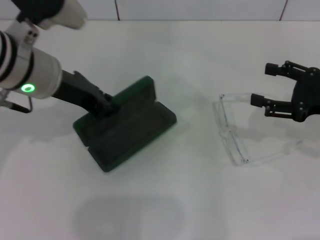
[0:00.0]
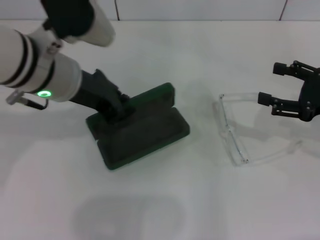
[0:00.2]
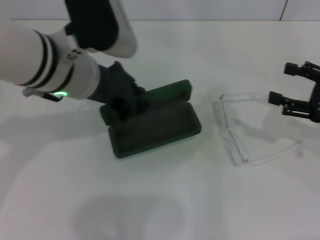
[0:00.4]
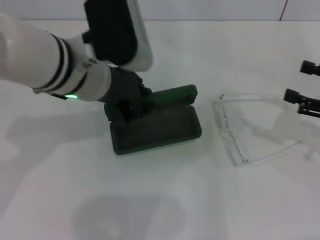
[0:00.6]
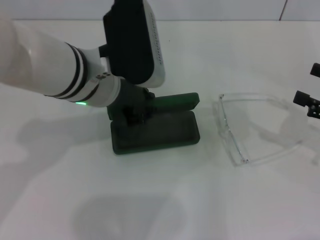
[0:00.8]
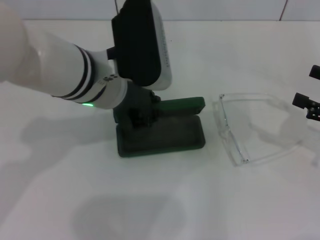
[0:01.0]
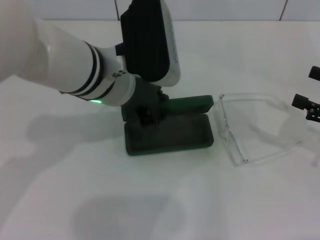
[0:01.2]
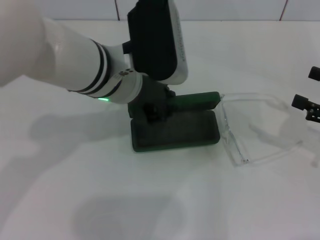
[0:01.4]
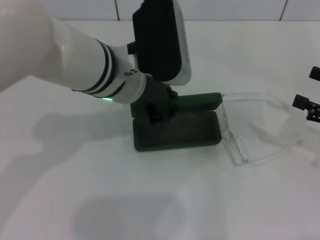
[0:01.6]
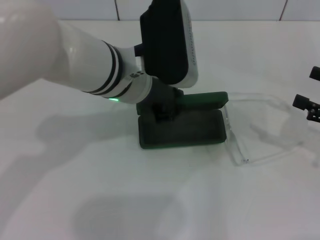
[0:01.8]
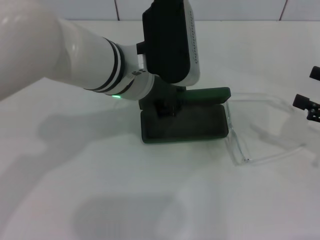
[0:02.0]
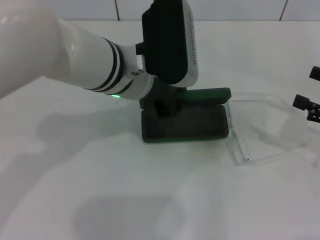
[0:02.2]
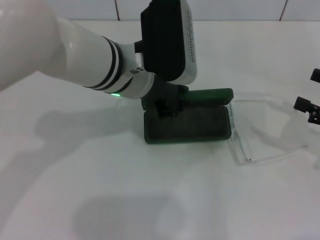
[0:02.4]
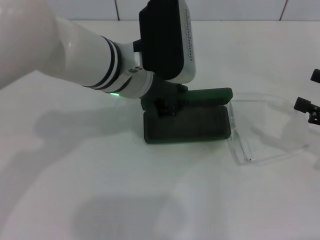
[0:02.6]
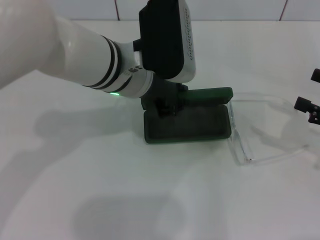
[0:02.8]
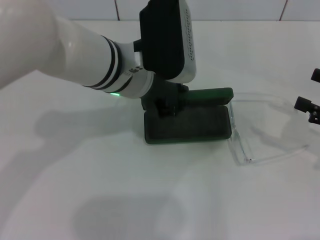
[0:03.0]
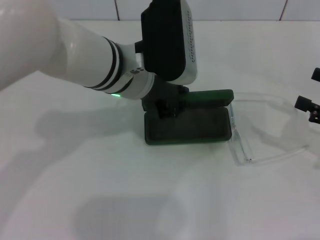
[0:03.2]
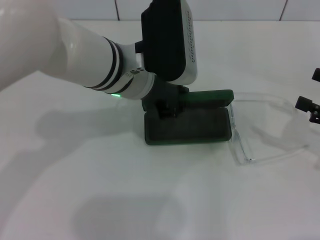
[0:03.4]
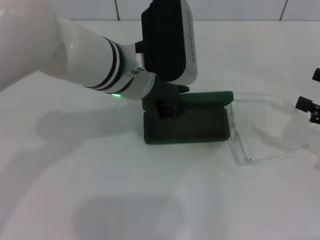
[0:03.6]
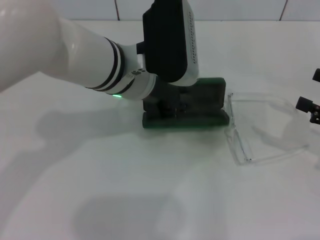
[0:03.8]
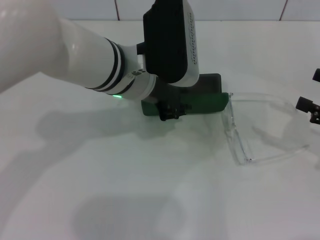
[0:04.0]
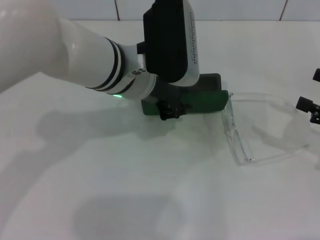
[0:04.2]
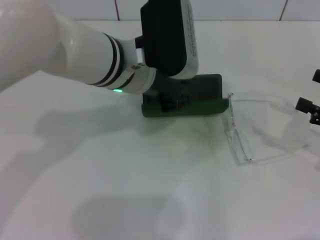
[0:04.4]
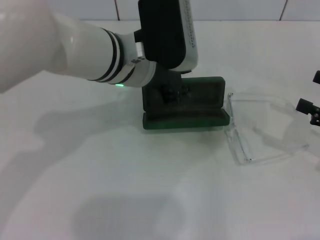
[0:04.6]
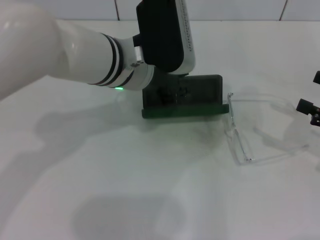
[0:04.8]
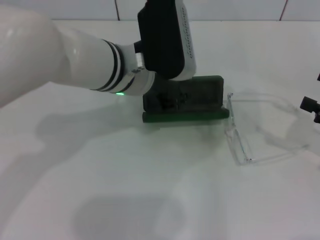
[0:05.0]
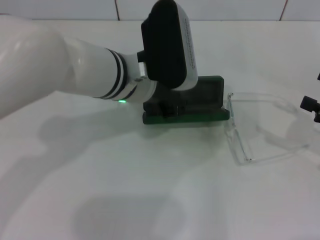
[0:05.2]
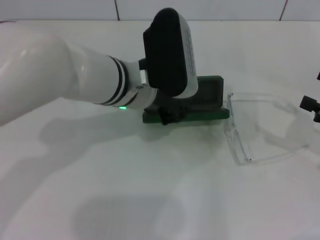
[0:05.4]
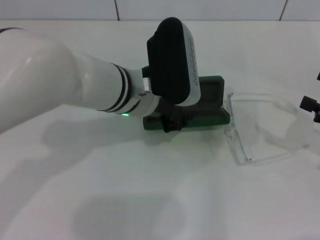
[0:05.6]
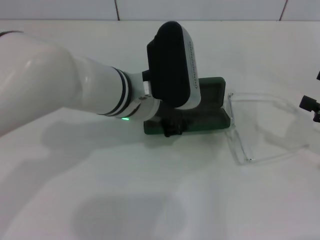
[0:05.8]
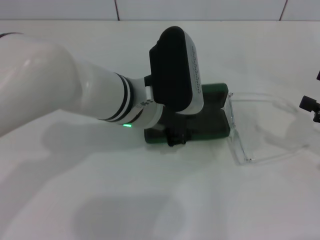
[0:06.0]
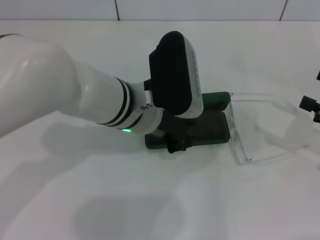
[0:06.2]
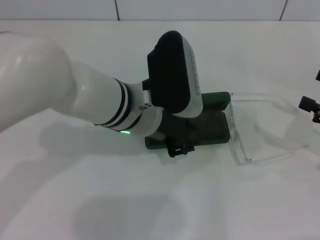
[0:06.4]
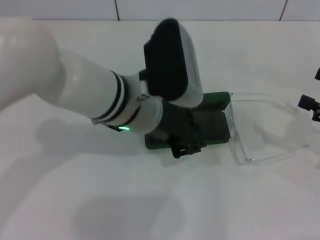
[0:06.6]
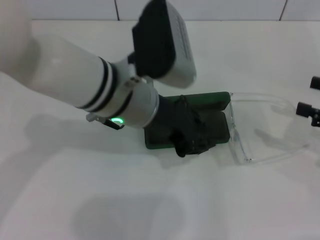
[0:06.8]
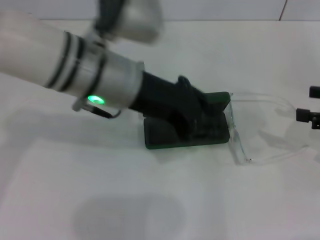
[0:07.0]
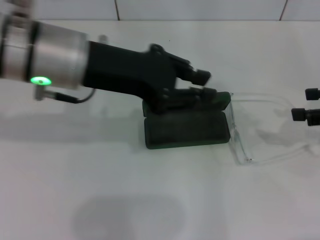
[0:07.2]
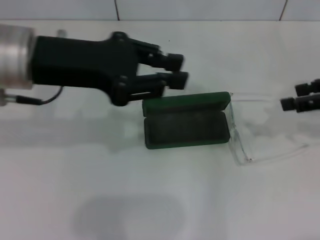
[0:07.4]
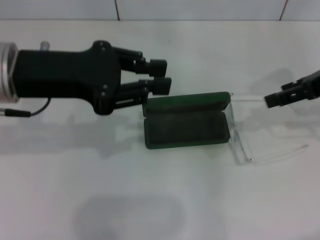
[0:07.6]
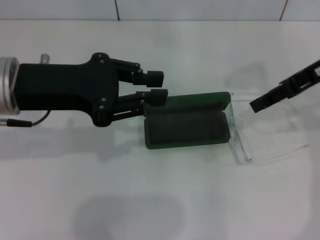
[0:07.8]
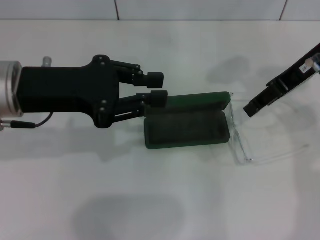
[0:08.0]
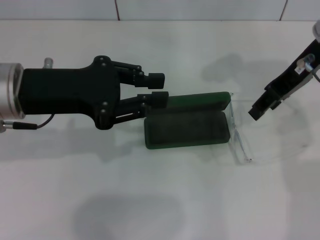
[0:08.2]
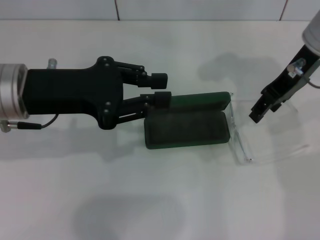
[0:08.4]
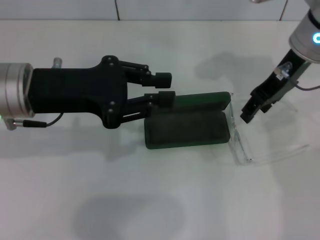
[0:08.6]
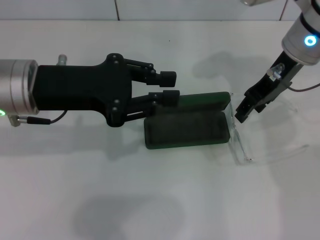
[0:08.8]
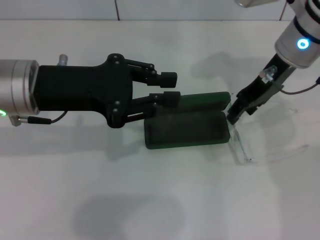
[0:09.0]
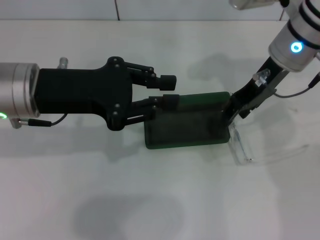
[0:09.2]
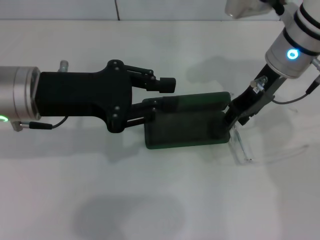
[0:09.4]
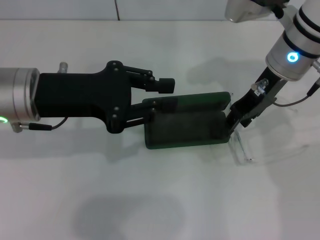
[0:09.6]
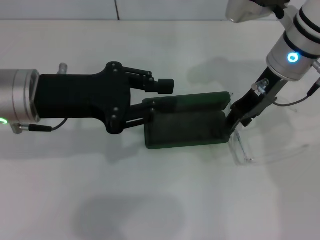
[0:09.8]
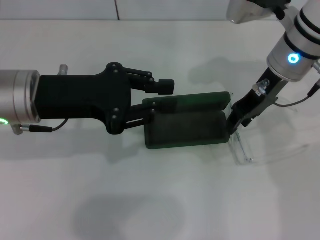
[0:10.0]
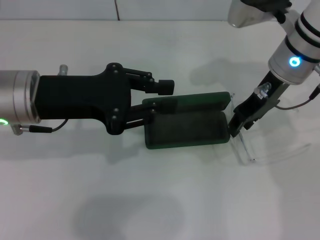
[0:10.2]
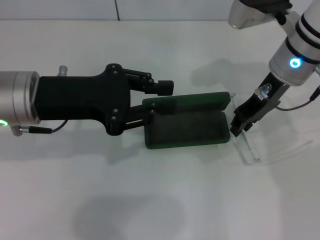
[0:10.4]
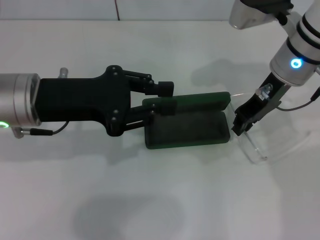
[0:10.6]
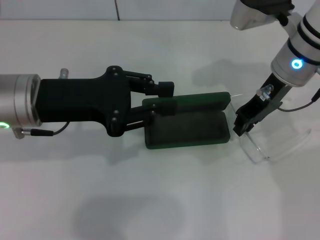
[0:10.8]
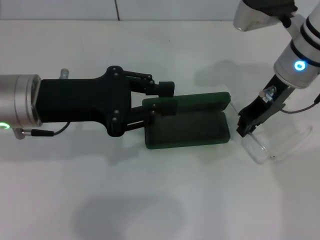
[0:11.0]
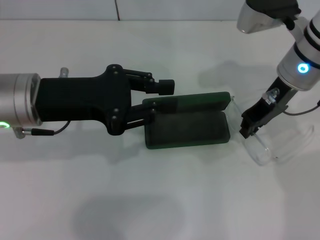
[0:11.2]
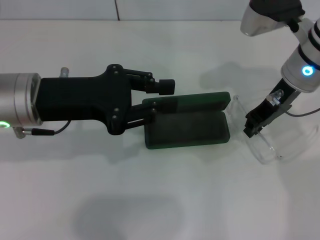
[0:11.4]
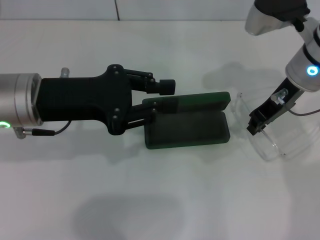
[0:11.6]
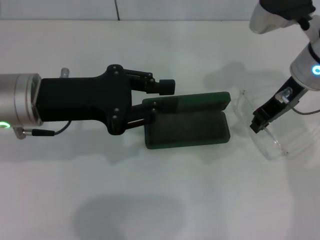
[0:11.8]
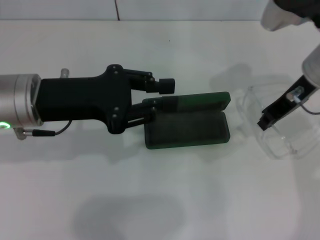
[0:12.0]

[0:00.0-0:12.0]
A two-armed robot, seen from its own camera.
Step, 0:00.0 to 0:06.2: Place the glasses case in the center of the table with your left hand.
Step, 0:06.4 to 0:10.6: Grab the eyeglass frame with your right hand.
0:00.0 to 0:01.6: The left gripper shifts about 10 cm to the right, while the right gripper changes place by roughly 5 cm.
0:01.6 to 0:03.0: Neither gripper changes place.
0:03.0 to 0:04.4: Both grippers stay about where they are.
0:06.0 to 0:07.6: The right gripper heads upward, to the left and forward, covering some 15 cm; the left gripper shifts some 15 cm to the left and upward.
0:07.6 to 0:09.0: The right gripper goes about 15 cm to the left and forward.
0:09.0 to 0:12.0: There are only small adjustments of the grippers.

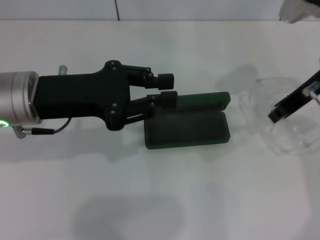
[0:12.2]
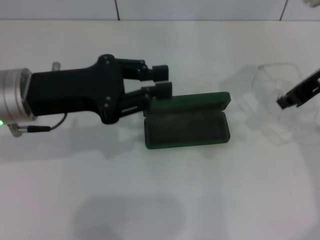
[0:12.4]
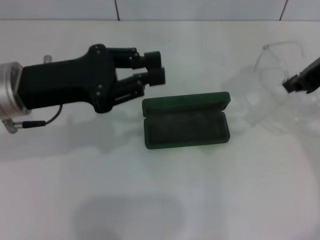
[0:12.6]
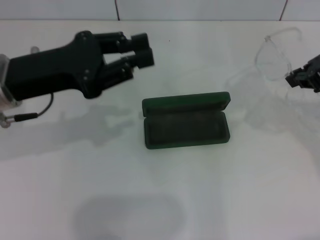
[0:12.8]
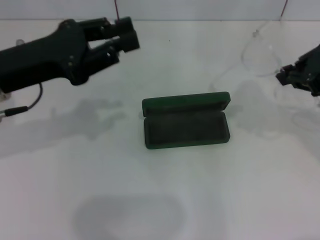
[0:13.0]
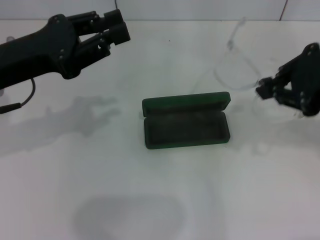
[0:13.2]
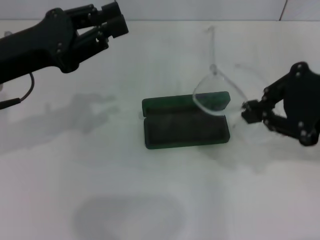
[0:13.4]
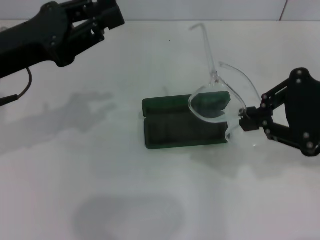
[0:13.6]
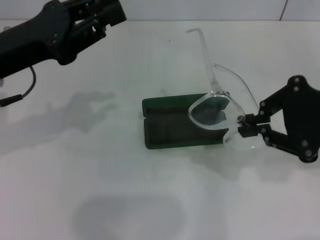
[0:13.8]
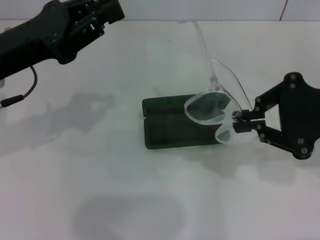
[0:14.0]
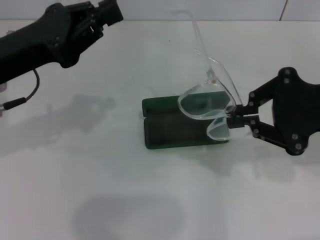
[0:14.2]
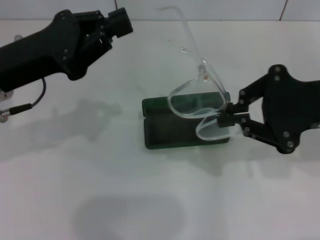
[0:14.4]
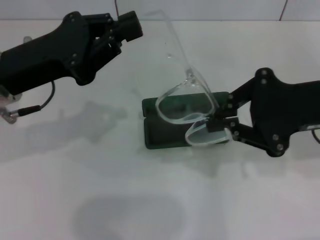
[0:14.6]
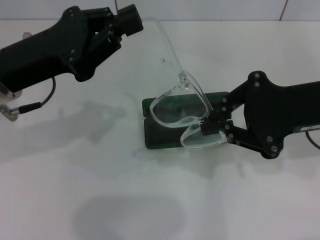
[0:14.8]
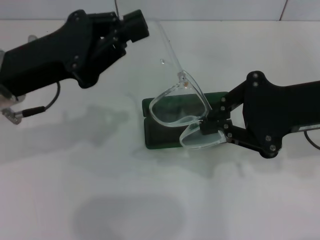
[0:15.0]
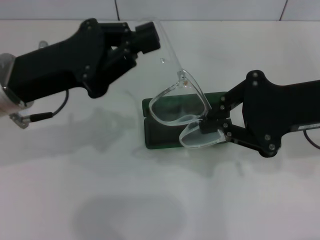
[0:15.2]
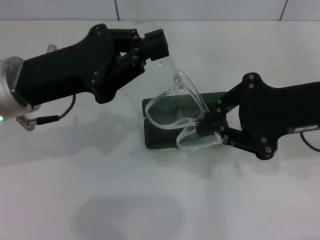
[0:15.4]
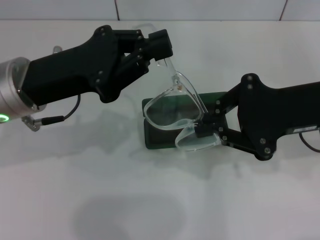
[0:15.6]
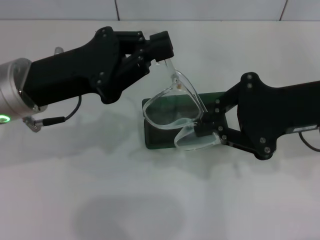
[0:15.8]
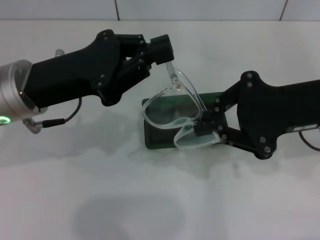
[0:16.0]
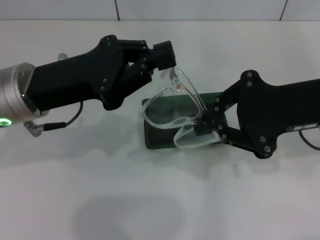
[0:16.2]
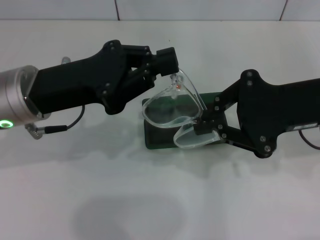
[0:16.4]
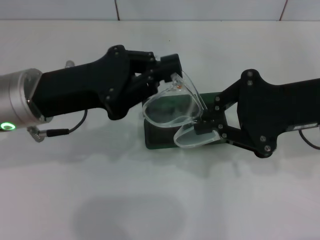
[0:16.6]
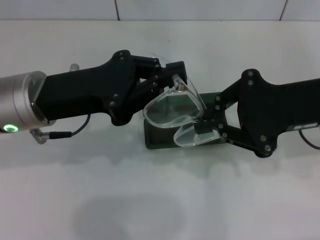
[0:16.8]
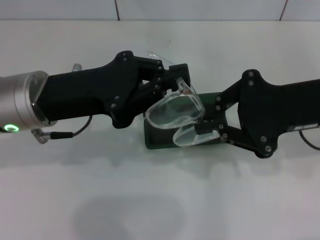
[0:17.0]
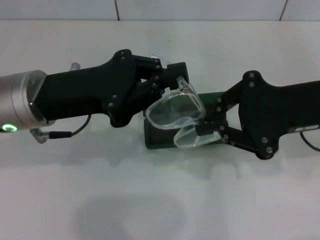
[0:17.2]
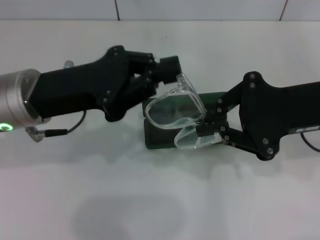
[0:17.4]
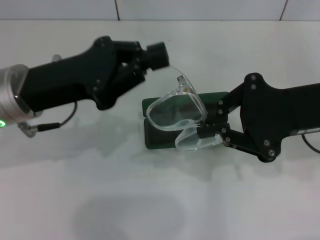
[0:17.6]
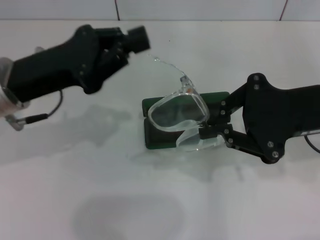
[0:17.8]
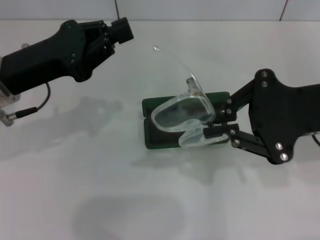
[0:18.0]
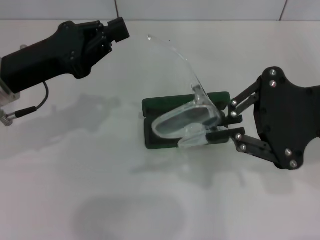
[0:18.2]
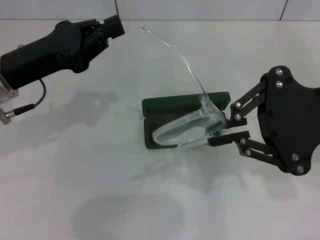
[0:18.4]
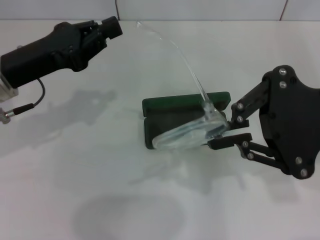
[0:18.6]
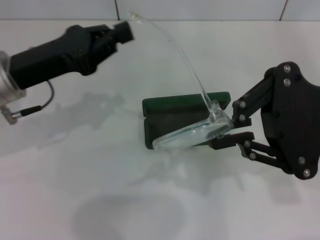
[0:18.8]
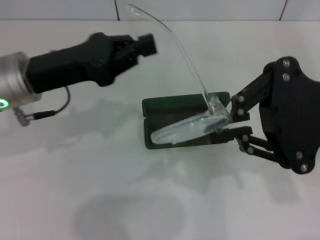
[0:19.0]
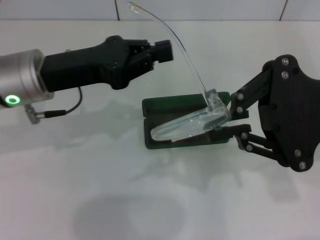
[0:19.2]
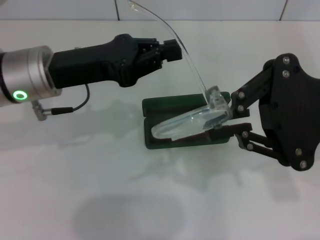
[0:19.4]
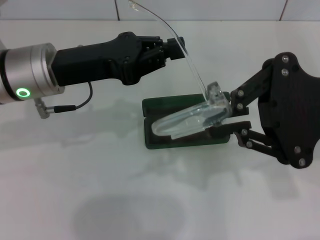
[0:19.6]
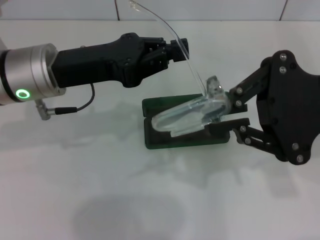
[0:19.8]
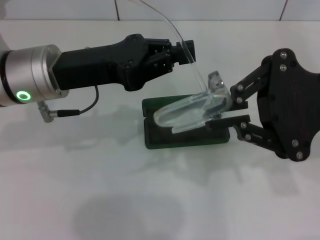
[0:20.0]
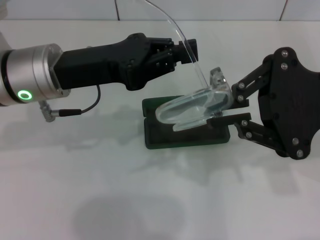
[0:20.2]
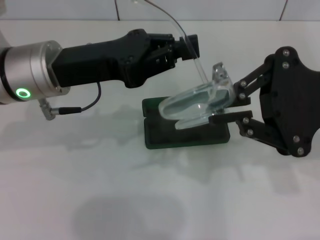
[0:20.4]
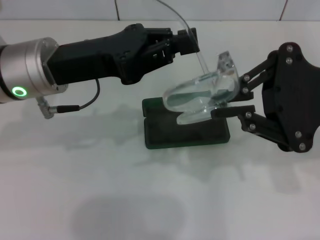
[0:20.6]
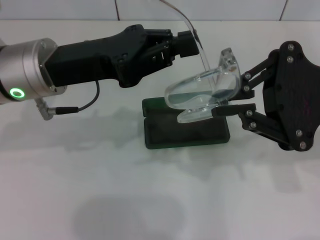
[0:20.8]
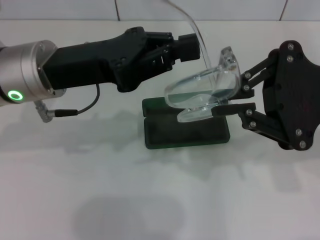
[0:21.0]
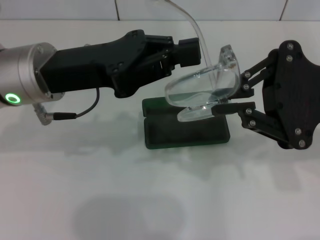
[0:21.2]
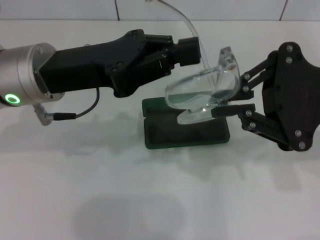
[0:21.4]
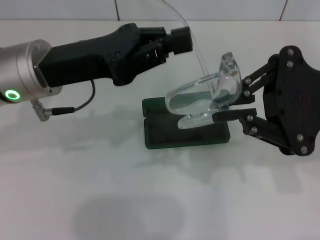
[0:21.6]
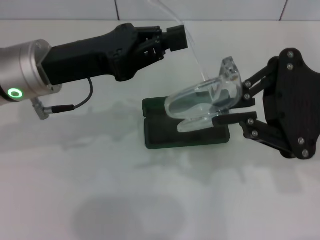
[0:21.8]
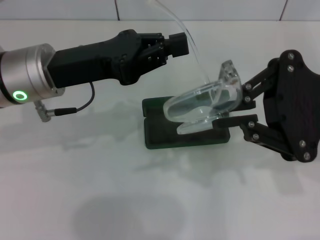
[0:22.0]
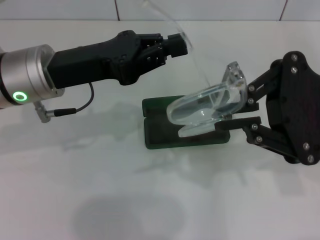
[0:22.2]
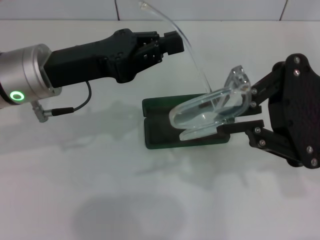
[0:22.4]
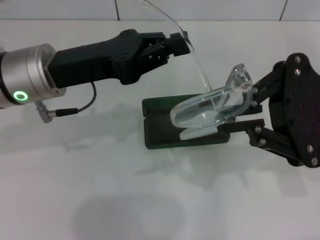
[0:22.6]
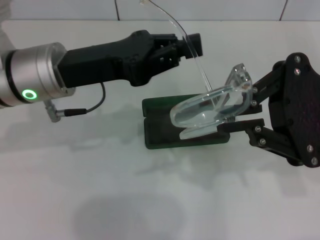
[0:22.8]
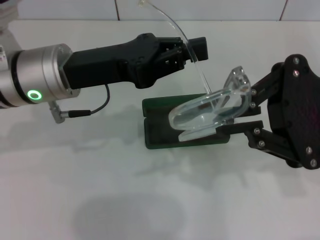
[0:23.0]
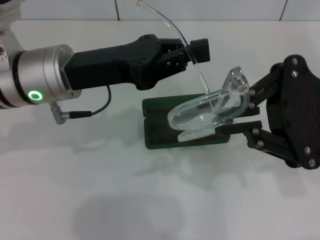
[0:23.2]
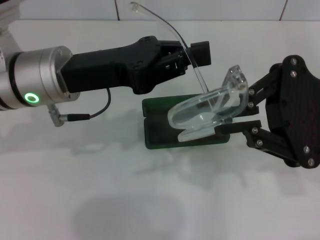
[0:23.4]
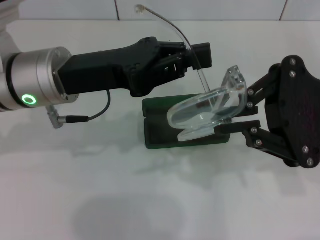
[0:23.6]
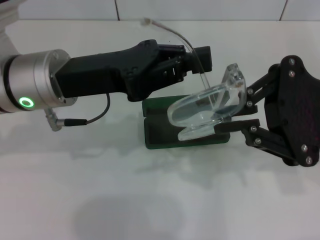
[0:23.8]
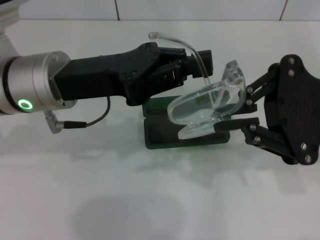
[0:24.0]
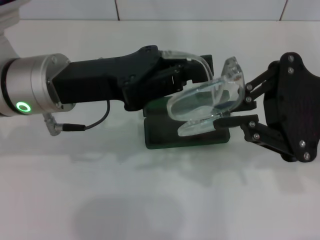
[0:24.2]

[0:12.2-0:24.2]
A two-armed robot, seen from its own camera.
0:12.2 to 0:13.8: The right gripper goes about 10 cm backward.
0:15.2 to 0:16.6: There are only small adjustments of the grippers.
0:18.2 to 0:19.8: The left gripper shifts approximately 5 cm to the right.
0:19.8 to 0:22.6: The grippers stay close to where they were, moving slightly.
